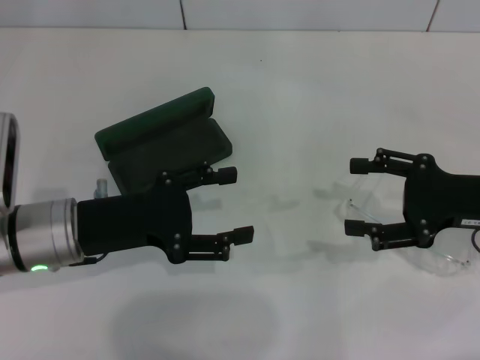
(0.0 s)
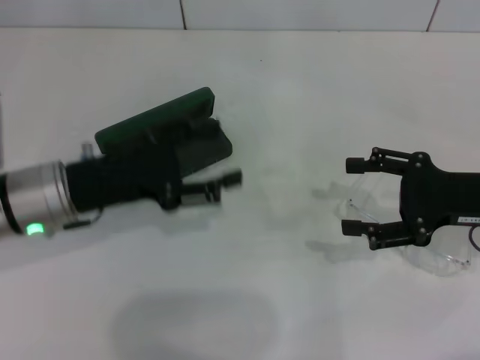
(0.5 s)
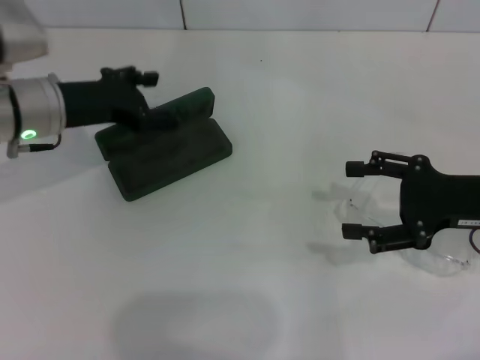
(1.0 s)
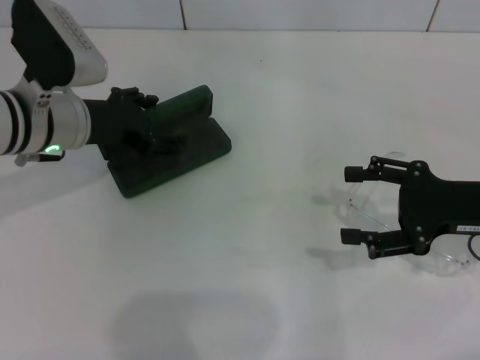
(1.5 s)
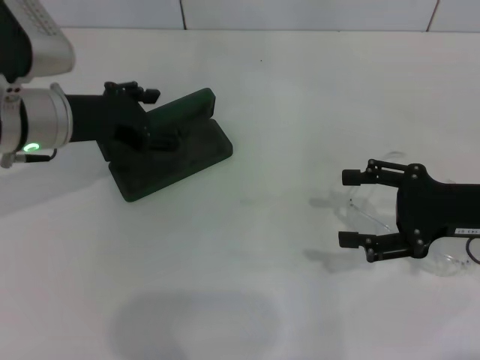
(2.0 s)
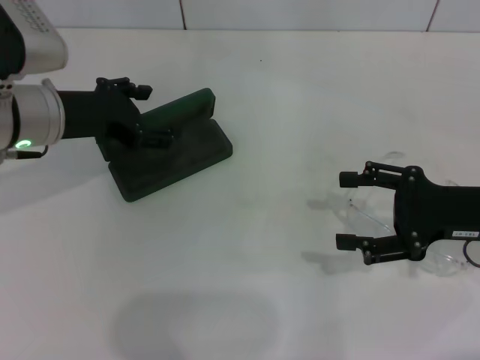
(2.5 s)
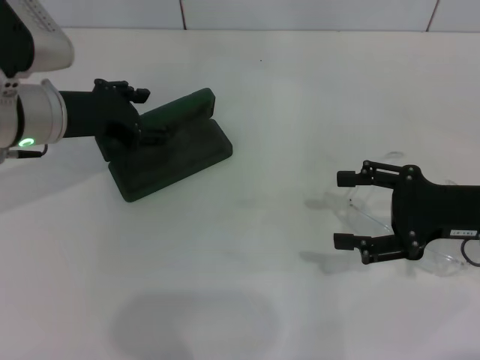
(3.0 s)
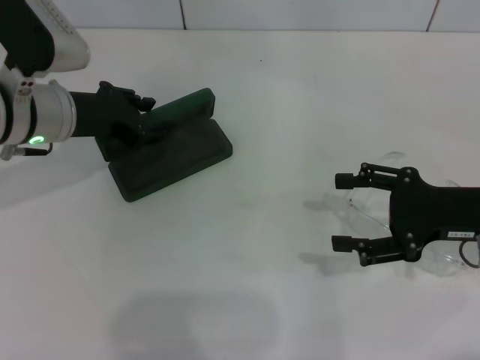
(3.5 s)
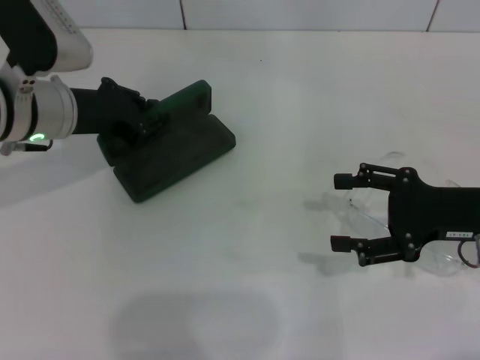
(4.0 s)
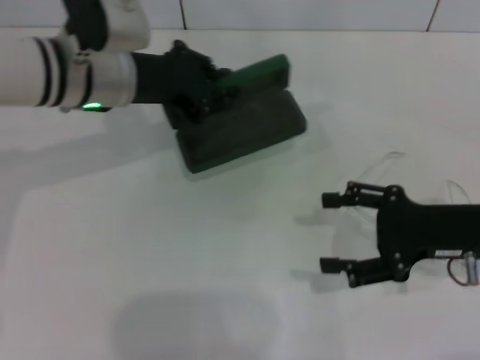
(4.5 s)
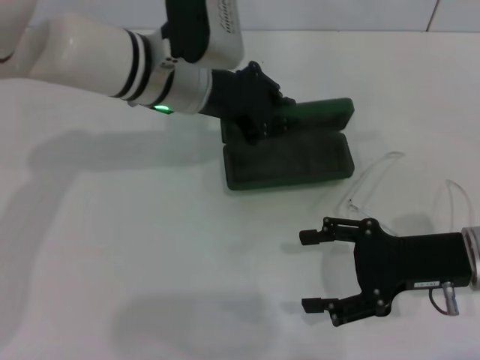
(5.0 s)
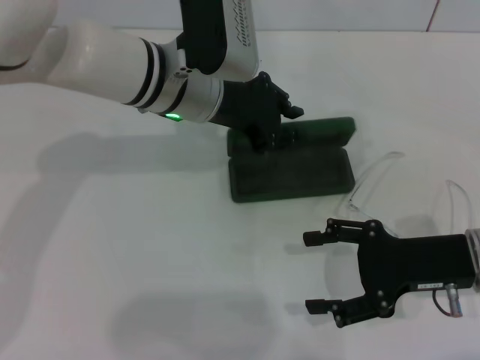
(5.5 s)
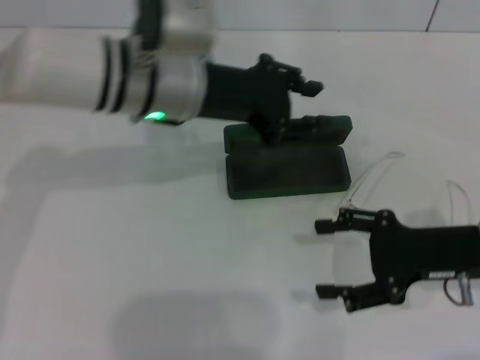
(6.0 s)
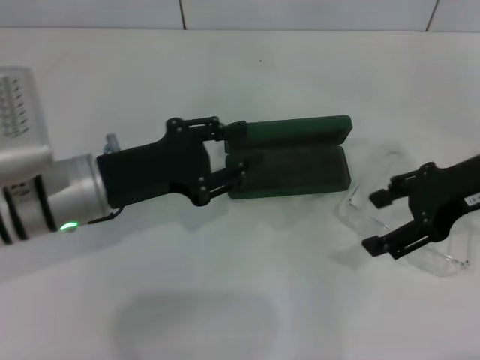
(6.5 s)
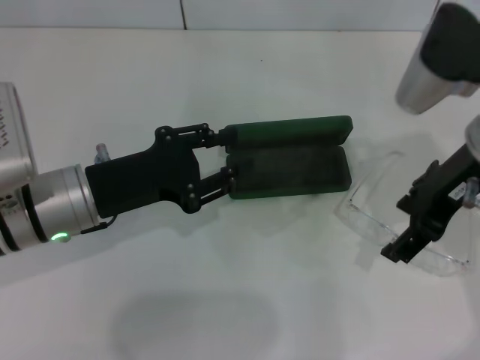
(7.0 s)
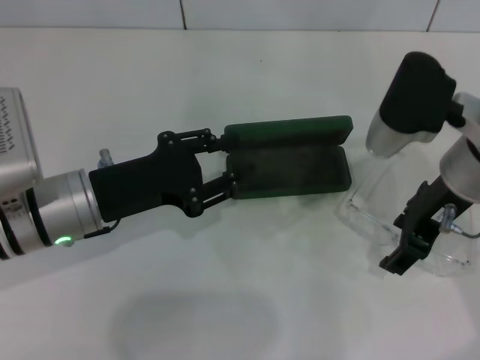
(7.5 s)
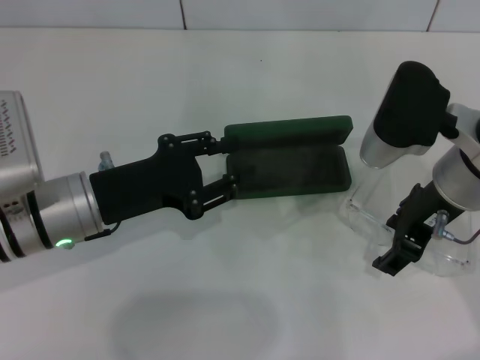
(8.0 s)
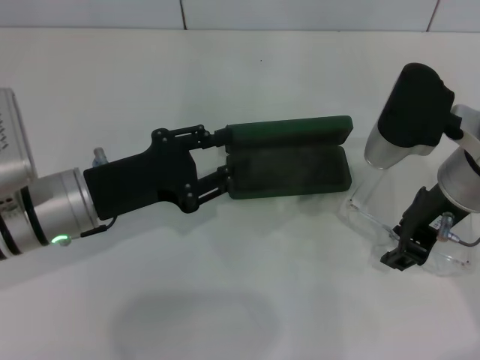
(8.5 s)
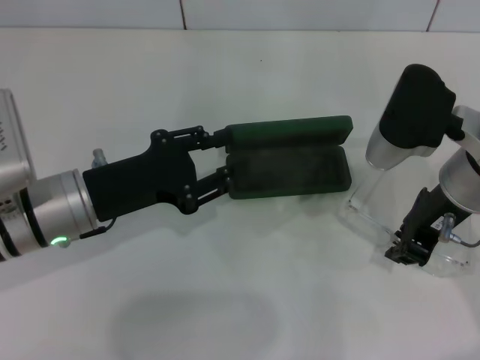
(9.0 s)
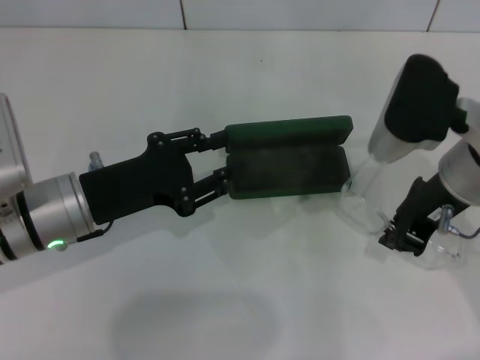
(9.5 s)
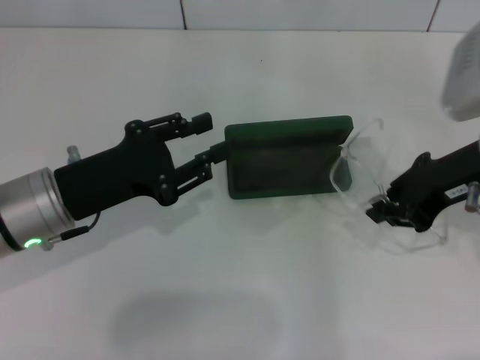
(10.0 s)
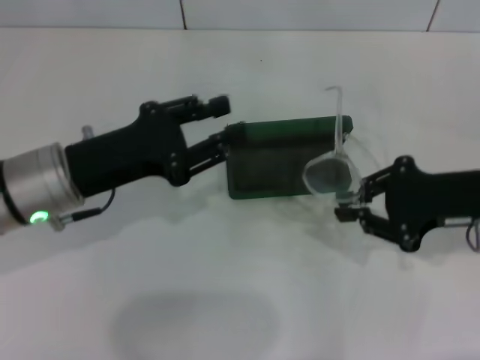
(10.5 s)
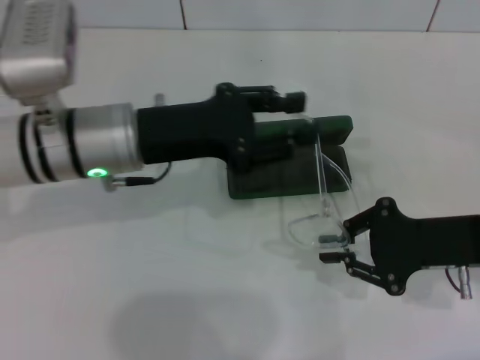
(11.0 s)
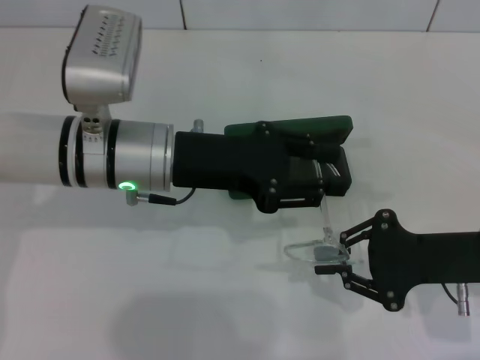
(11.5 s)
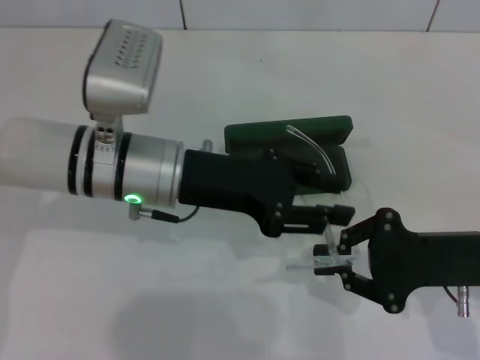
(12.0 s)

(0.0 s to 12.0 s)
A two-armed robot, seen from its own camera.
Step, 0.0 s - 3.5 s: Grab the glasses case with your left hand.
Step, 4.0 s - 5.5 s: Place the glasses case in the center of the table with your left hand.
Step, 6.0 s - 9.0 s: Grab the eyeglass frame with your right hand.
0.0 s - 2.0 s: The left gripper moves forward and upward, about 10 cm.
2.0 s - 4.0 s: The left gripper closes.
4.0 s - 6.0 s: The left gripper is displaced to the right by roughly 10 cm.
6.0 s - 8.0 s: The right gripper goes some 10 cm upward and to the left, while the left gripper moves to the left, backward and downward, some 15 cm.
8.0 s - 10.0 s: The right gripper moves roughly 5 cm, and closes.
10.0 s - 12.0 s: The right gripper heads downward and backward, covering approximately 10 cm. The left gripper heads to the right, covering some 10 cm.

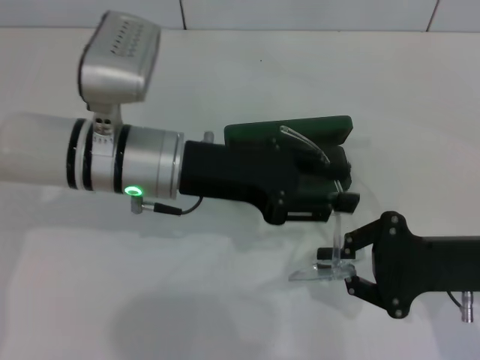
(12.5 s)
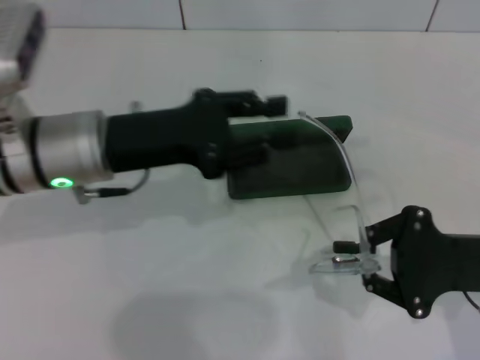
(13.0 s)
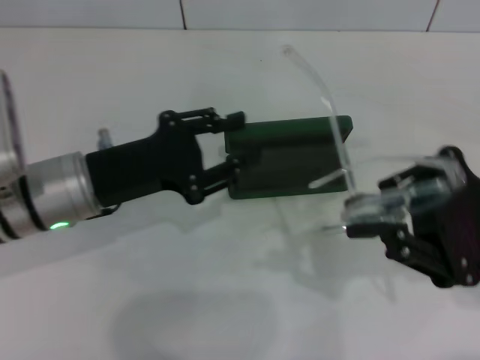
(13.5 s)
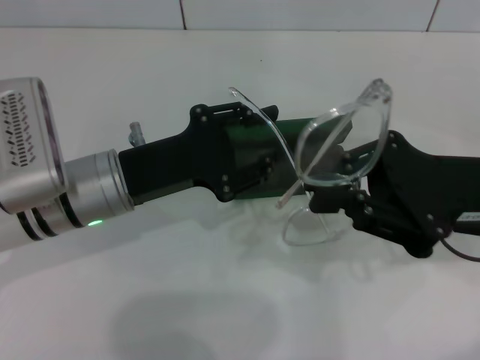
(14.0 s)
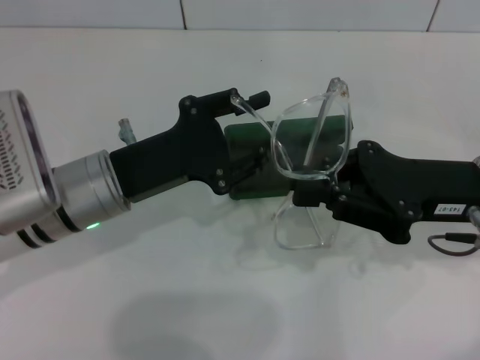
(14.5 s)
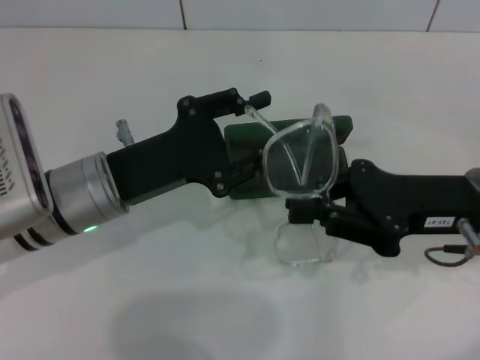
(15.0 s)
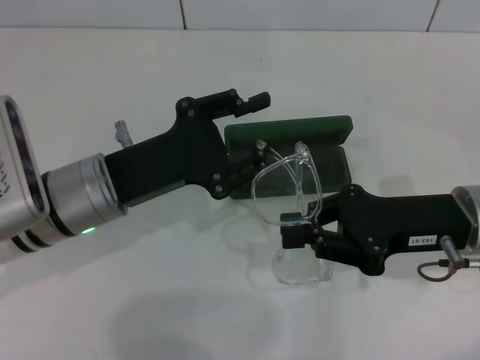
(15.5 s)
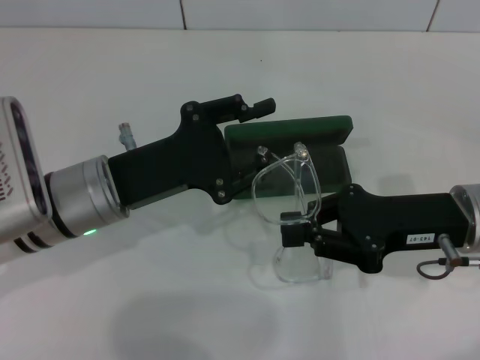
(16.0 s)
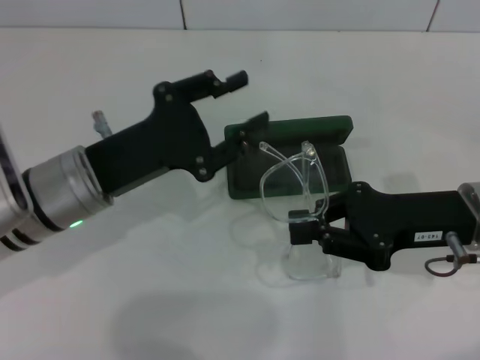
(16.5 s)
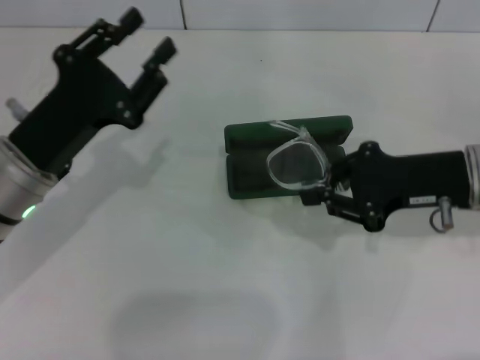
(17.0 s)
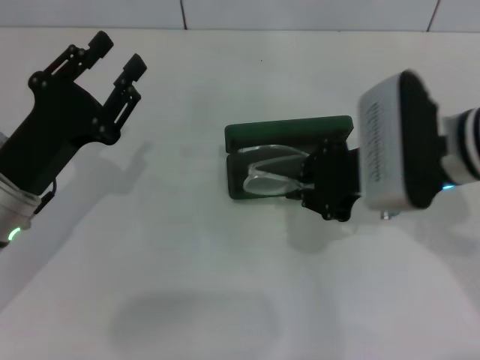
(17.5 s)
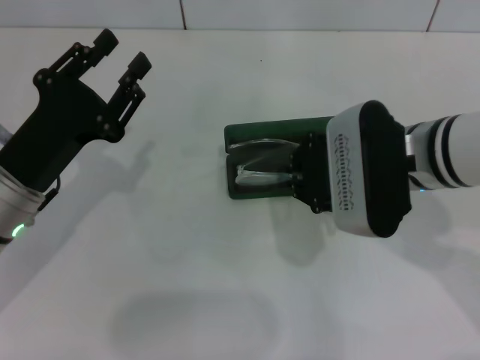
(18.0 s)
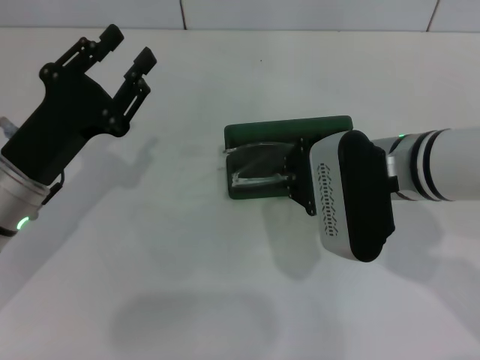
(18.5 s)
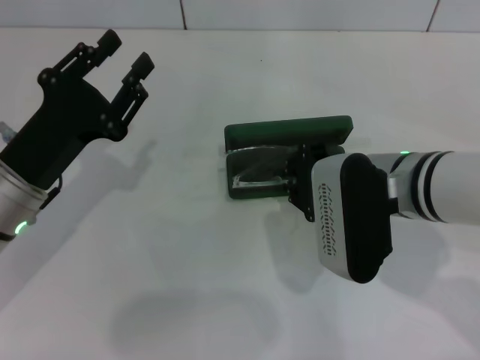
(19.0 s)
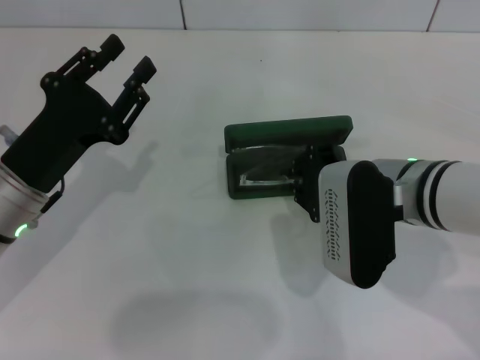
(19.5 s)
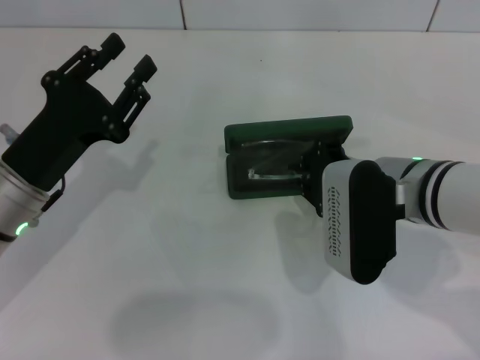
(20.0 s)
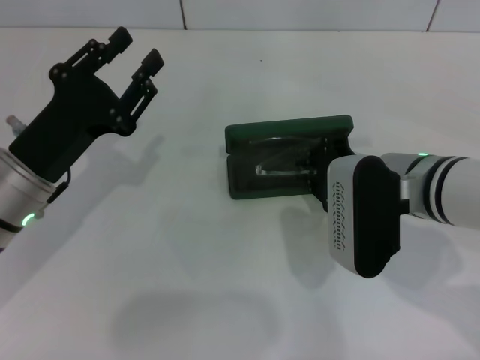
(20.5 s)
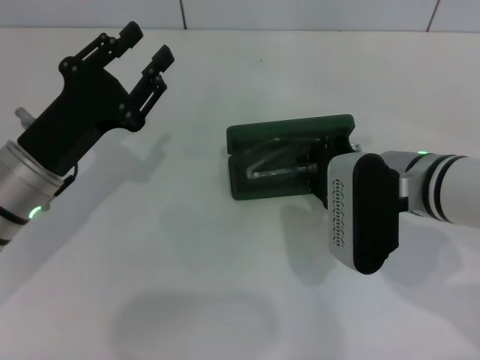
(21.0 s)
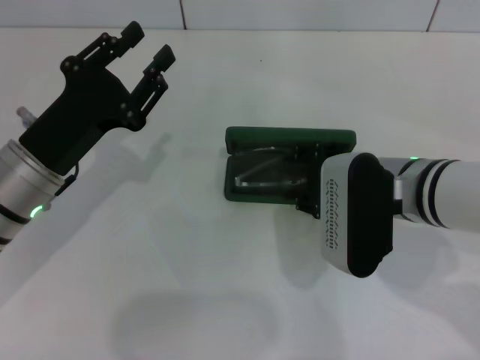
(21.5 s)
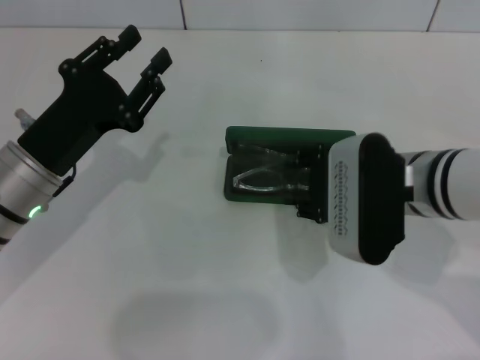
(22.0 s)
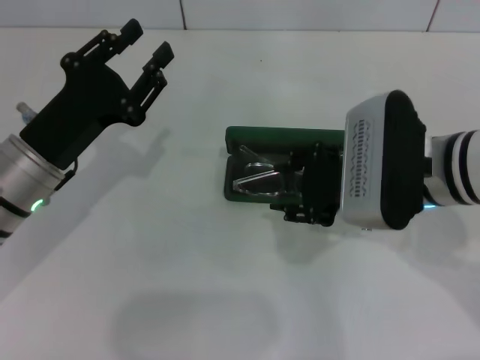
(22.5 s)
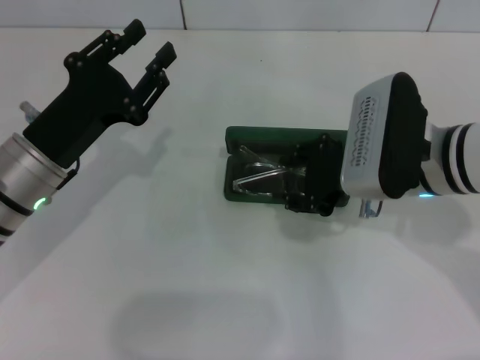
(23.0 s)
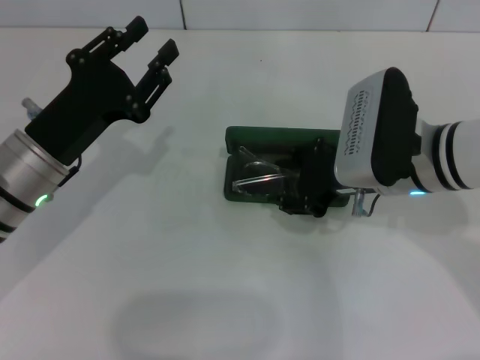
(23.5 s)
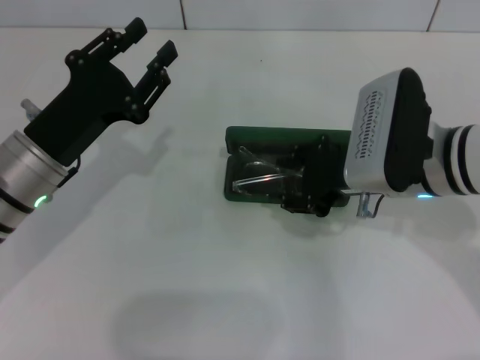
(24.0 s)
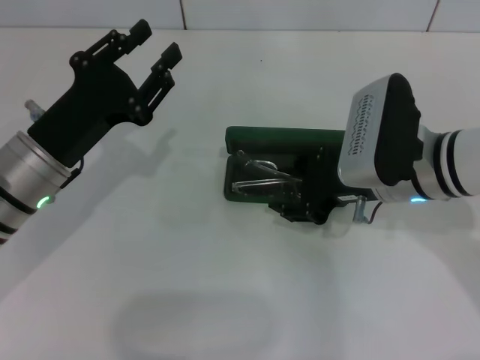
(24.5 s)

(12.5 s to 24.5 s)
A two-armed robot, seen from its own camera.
Step, 12.5 s - 16.0 s: Fold the frame with your left hand.
12.5 s - 14.5 s: The left gripper is displaced to the left by some 5 cm. The right gripper shifts by some 5 cm.
16.5 s - 18.5 s: The left gripper moves approximately 5 cm; the right gripper travels to the left by about 10 cm.
18.5 s - 20.5 s: The grippers move only a little.
20.5 s - 22.5 s: The right gripper opens.
22.5 s - 24.5 s: There are only small adjustments of the grippers.

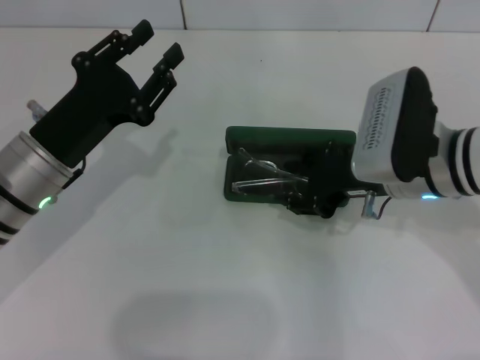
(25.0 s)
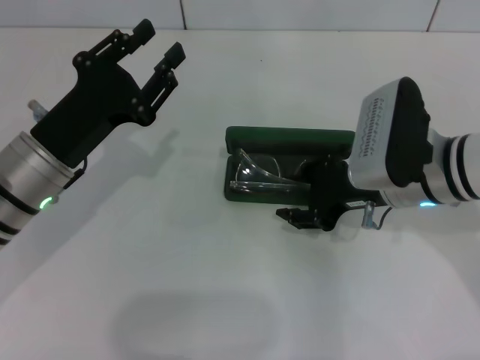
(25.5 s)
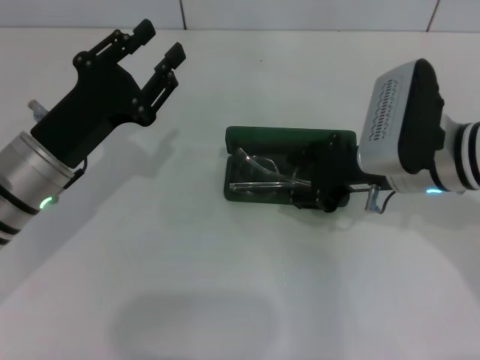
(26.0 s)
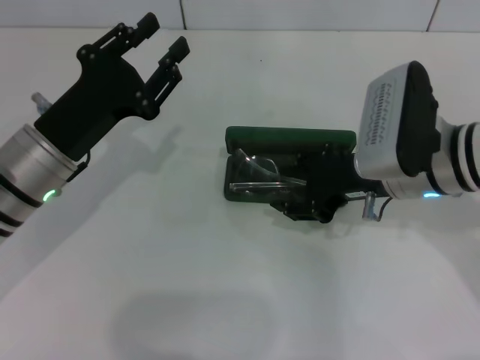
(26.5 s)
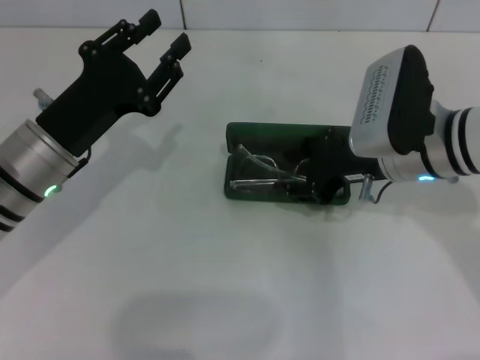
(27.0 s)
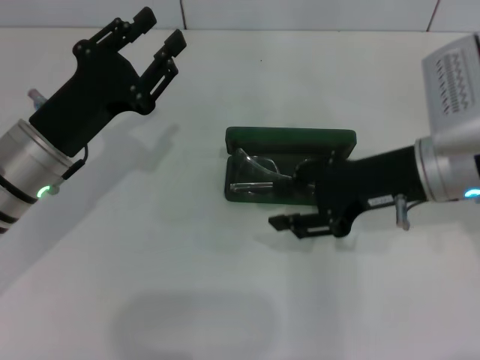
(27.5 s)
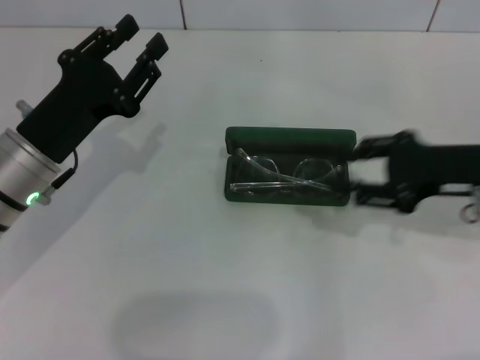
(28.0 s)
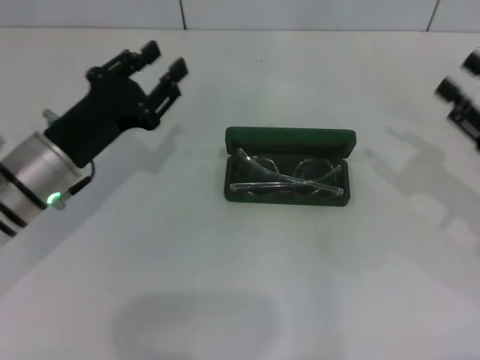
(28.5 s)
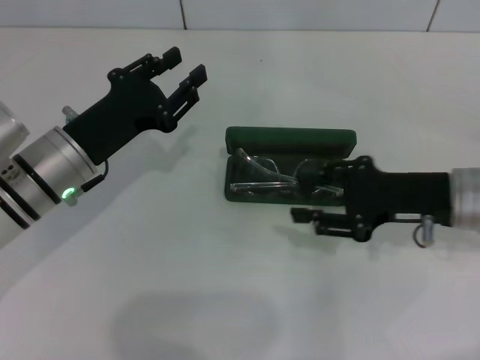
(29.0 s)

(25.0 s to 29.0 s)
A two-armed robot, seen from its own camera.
Step, 25.0 s - 27.0 s: Put the glasses into the case with your right hand.
25.0 s - 27.0 s: There are only small adjustments of the grippers.
27.0 s - 29.0 s: The right gripper travels to the right by about 5 cm.
